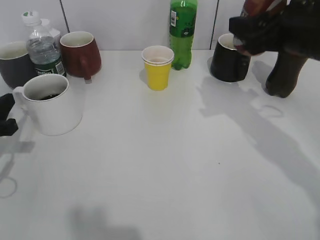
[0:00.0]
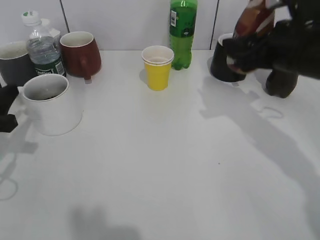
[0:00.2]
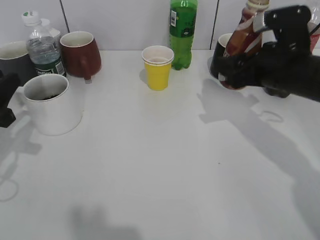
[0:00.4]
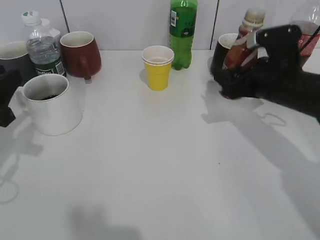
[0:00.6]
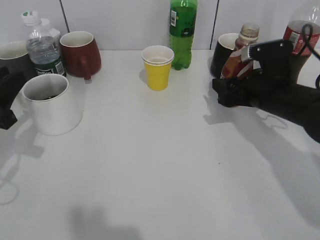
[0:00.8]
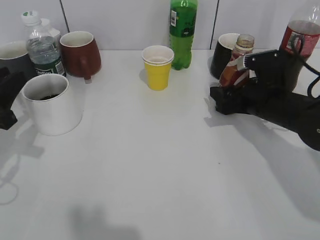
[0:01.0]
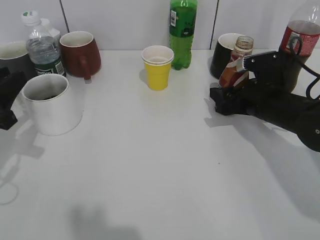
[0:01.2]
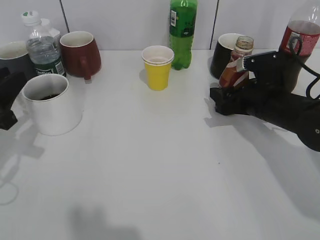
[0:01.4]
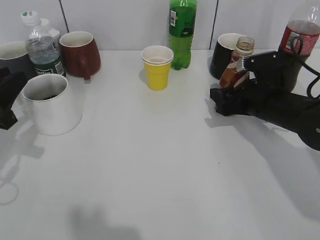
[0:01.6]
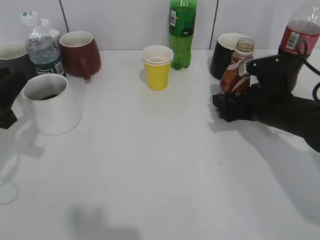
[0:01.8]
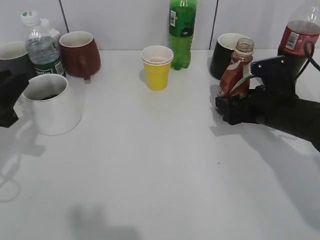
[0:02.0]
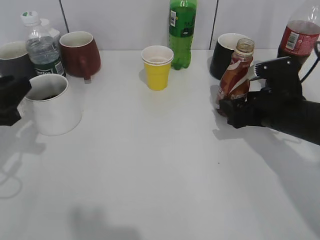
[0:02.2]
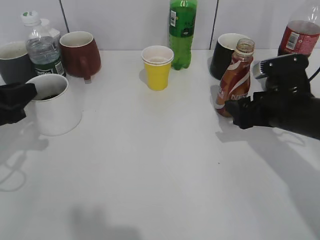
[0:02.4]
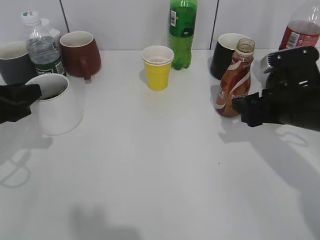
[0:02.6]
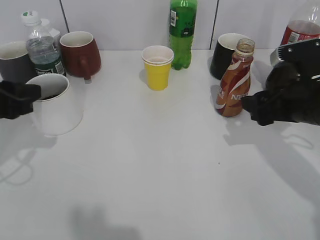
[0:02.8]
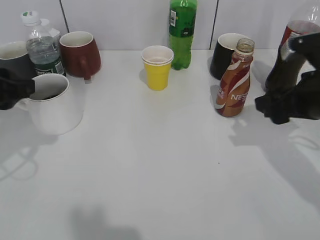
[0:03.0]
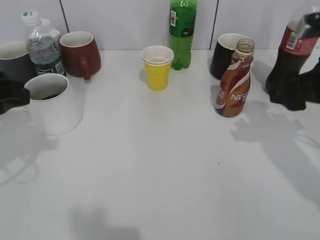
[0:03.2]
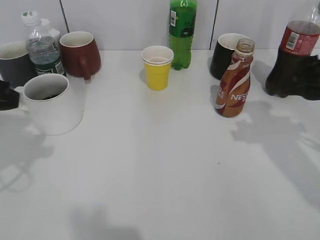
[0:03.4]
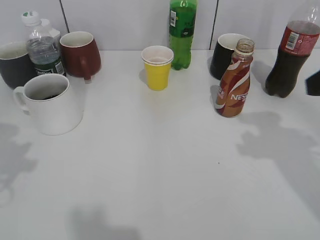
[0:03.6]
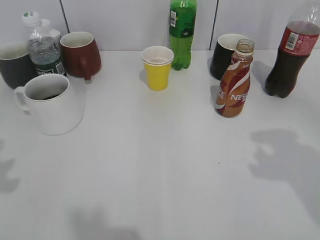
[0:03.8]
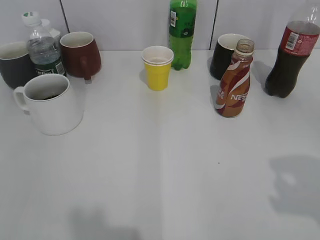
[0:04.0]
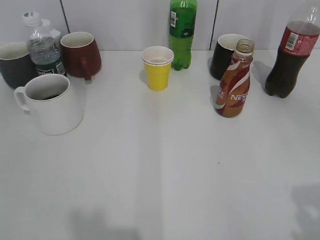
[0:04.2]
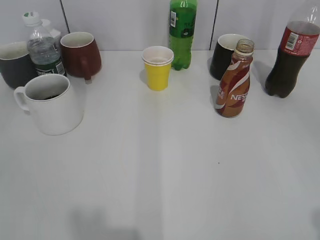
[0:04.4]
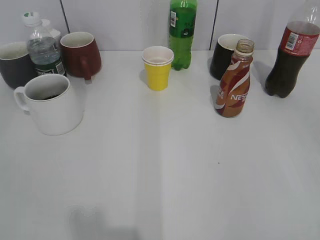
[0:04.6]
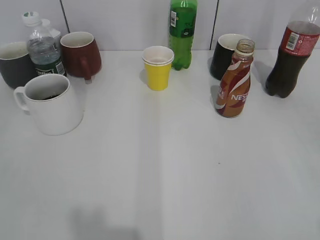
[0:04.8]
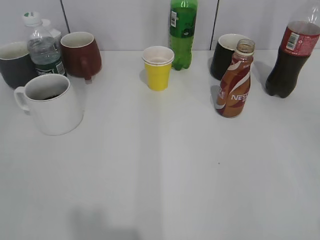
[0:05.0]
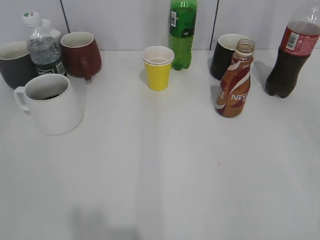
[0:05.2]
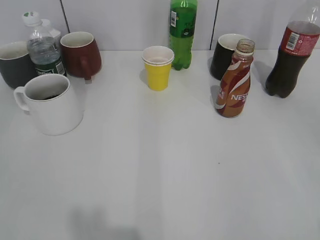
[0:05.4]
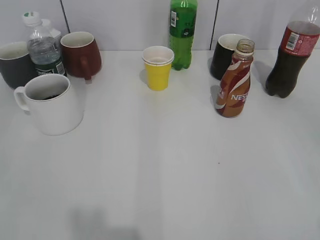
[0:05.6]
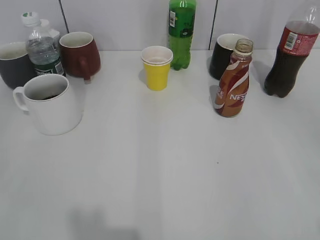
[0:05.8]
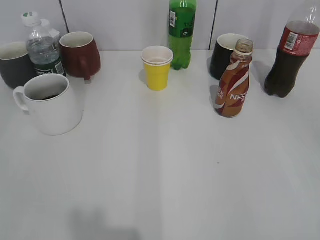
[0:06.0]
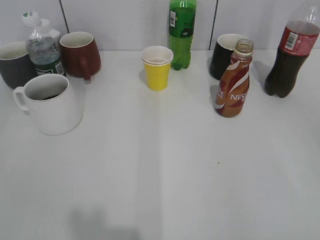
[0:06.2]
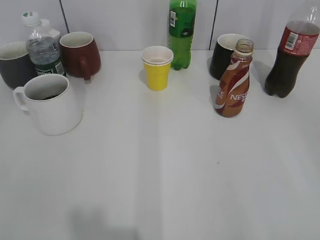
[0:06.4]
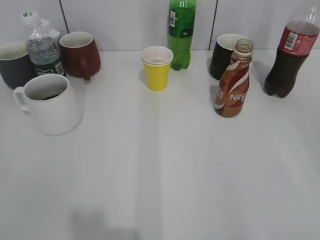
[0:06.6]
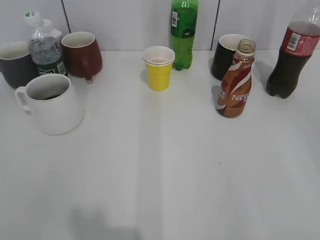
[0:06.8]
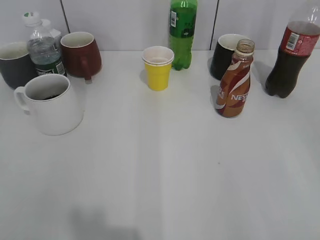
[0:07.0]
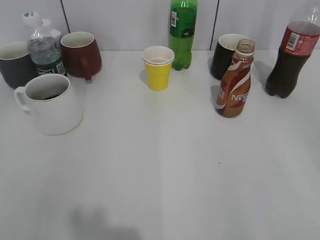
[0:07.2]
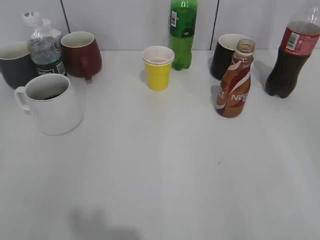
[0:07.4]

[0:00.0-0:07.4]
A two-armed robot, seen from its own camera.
Step, 0:00.0 to 0:02.4: Place the coffee bottle on the table with right gripper.
0:00.0 to 0:01.4: The left gripper moves some 5 cm. Meanwhile the right gripper moves downward, approximately 15 cm.
0:01.4 to 0:03.0: The right gripper goes roughly 10 cm upward and backward, and opens up, while the left gripper is displaced upward by approximately 5 cm.
0:03.0 to 0:04.4: The left gripper heads backward, covering roughly 20 cm. Meanwhile the right gripper heads backward and upward, covering approximately 25 cm.

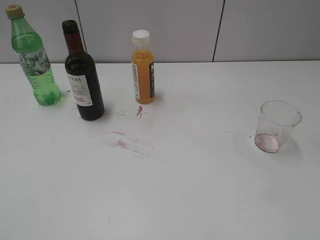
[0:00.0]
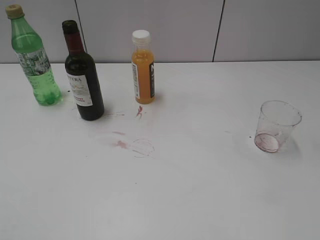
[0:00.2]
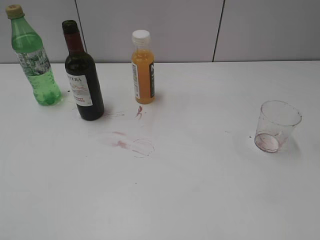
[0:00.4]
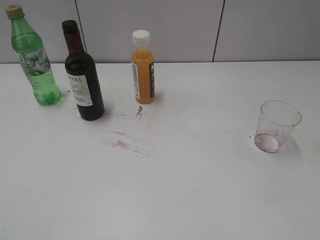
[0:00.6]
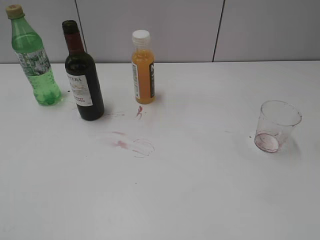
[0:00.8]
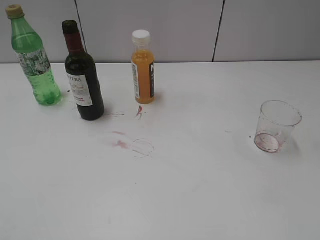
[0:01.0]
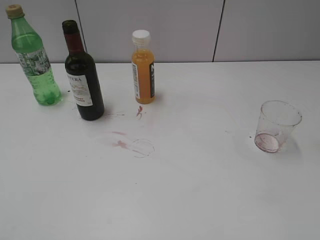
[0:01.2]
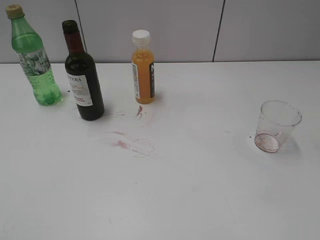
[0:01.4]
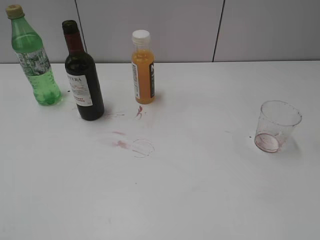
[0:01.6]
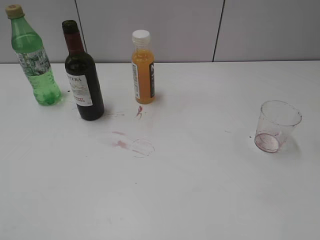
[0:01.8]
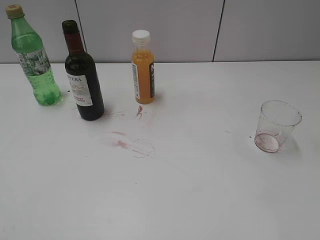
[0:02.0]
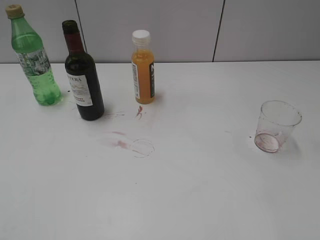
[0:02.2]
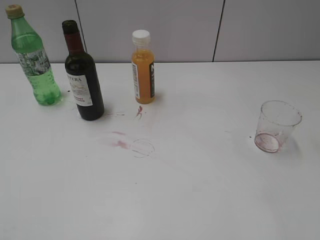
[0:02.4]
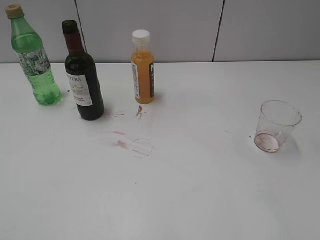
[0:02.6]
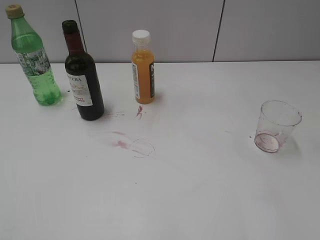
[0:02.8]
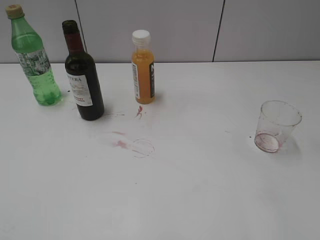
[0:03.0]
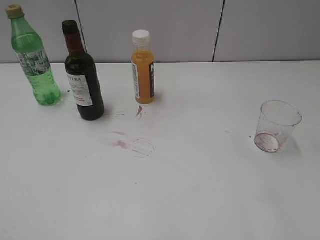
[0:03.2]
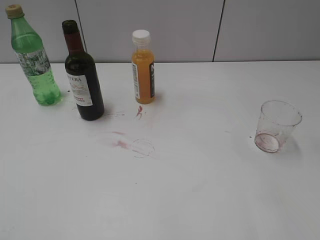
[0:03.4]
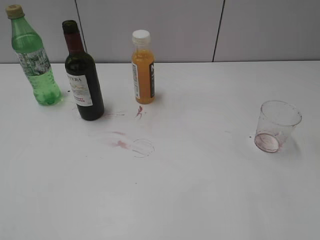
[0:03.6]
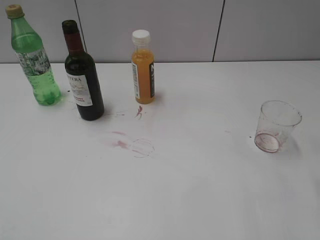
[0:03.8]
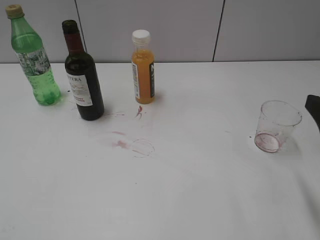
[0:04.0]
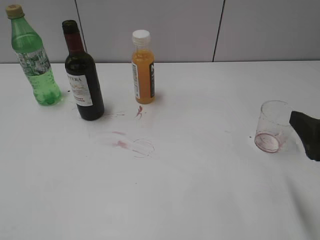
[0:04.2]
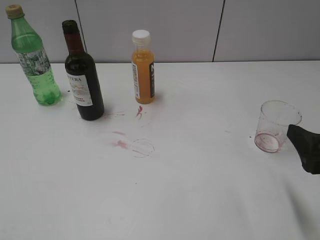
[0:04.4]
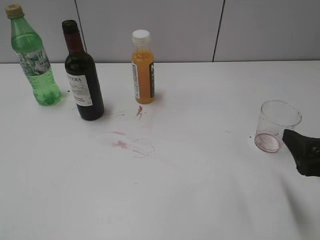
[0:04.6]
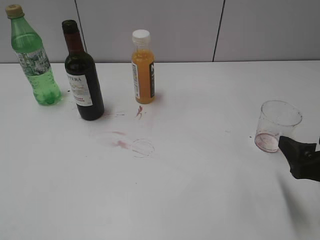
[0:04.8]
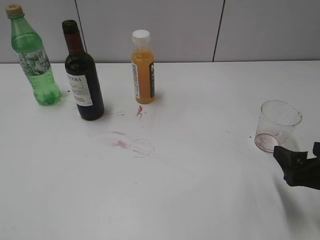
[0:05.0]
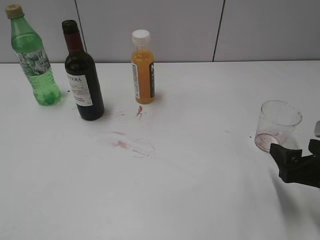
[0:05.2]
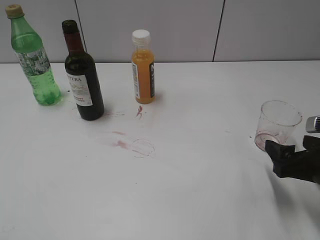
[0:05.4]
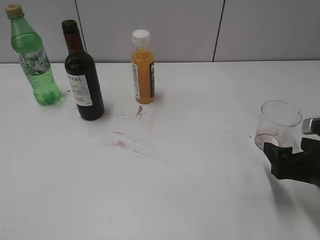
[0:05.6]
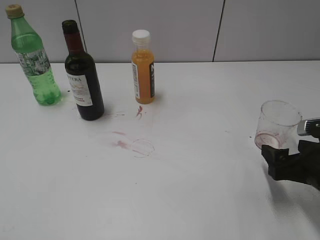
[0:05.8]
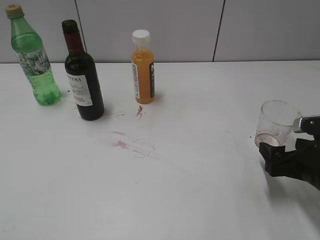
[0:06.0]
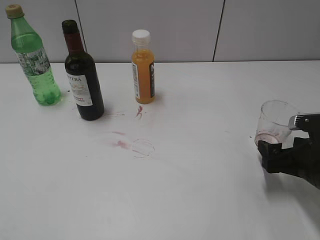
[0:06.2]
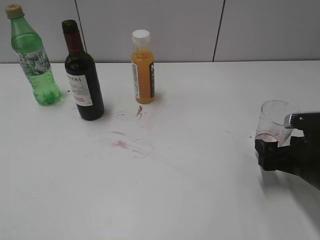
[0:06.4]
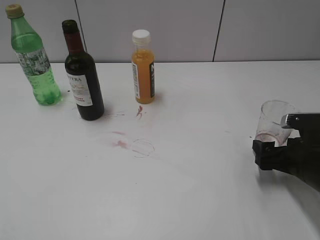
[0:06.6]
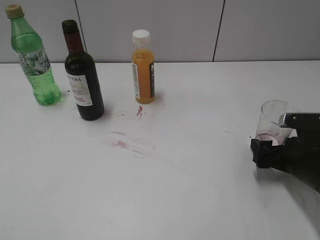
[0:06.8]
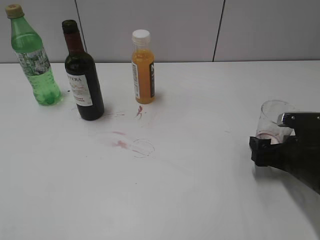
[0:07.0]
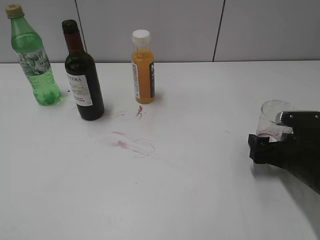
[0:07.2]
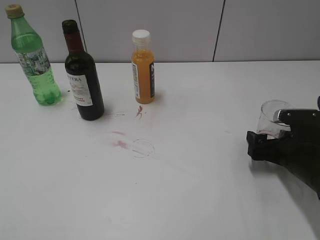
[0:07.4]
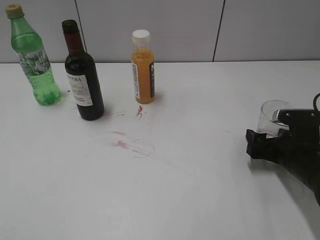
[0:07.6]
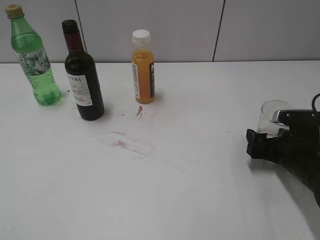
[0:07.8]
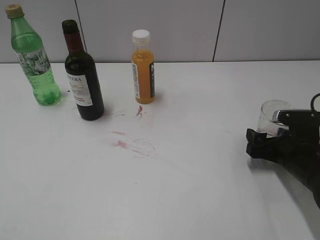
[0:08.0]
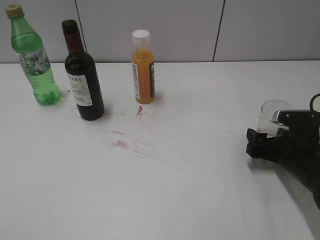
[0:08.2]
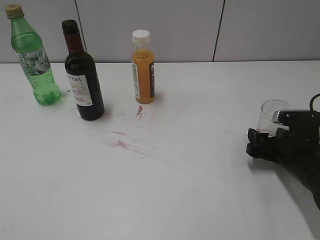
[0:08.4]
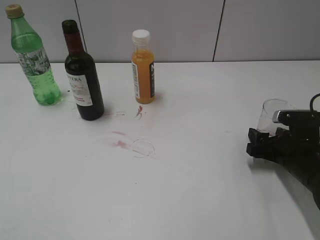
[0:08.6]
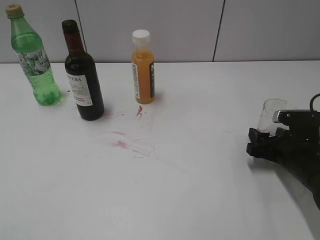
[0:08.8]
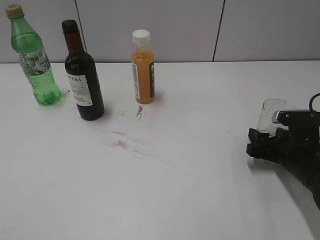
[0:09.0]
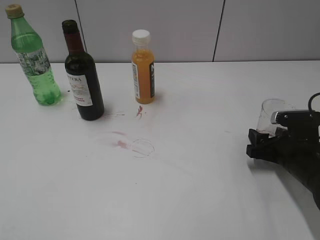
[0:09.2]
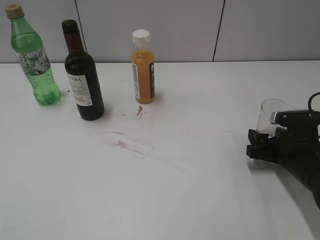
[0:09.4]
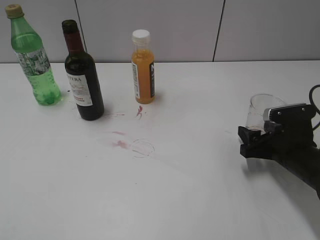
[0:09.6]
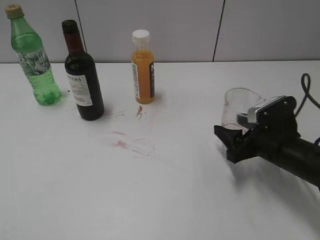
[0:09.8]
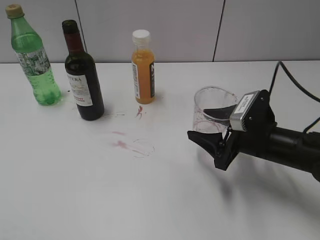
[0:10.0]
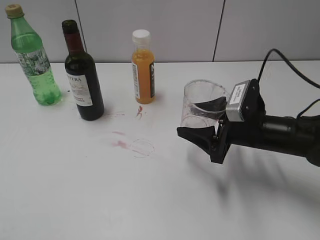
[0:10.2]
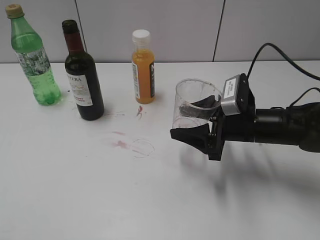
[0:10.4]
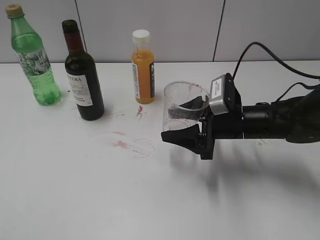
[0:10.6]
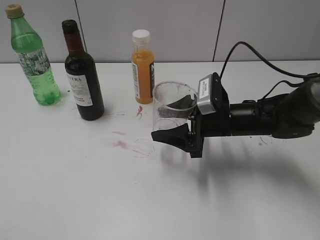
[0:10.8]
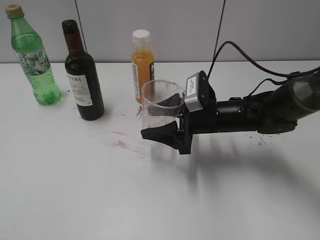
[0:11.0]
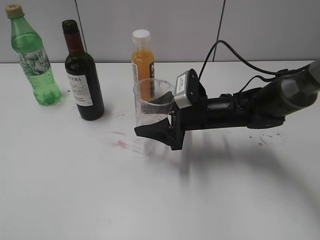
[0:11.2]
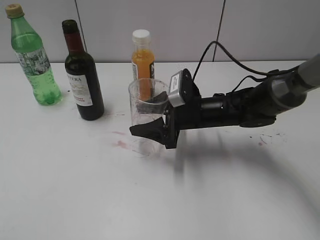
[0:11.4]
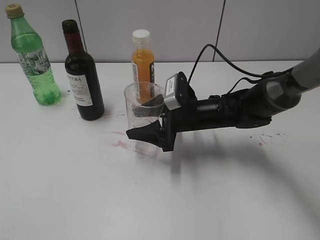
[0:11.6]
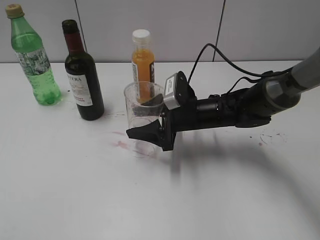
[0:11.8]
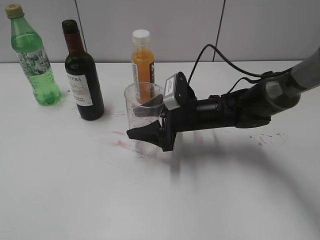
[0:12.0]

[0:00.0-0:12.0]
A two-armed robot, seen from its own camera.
Step, 0:01.4 to 0:08.4: Grasp the transparent cup with right gripper.
0:03.0 to 0:04.4: The right gripper travels downward by about 10 cm, and opens up.
0:04.4 to 0:06.0: The right gripper moves downward and forward, approximately 10 cm.
0:06.0 to 0:07.6: The right gripper travels forward by roughly 5 cm.
0:07.6 to 0:09.0: The right gripper closes.
0:09.0 to 0:10.4: The right gripper shifts some 10 cm to the left and upward.
0:10.4 to 0:12.0: The right gripper goes roughly 10 cm to the left and forward.

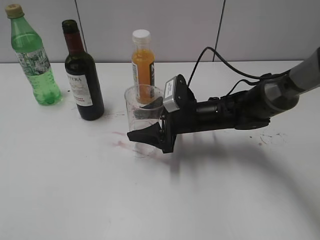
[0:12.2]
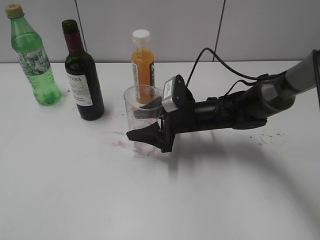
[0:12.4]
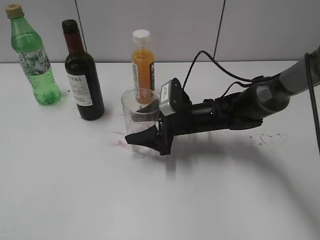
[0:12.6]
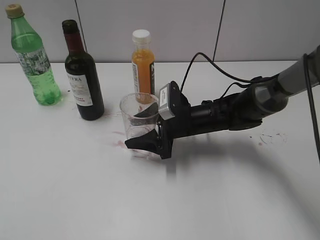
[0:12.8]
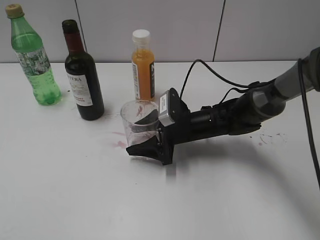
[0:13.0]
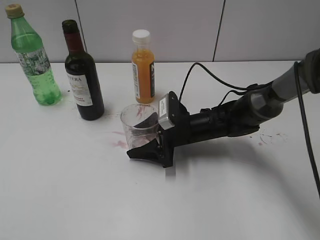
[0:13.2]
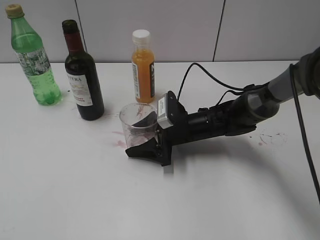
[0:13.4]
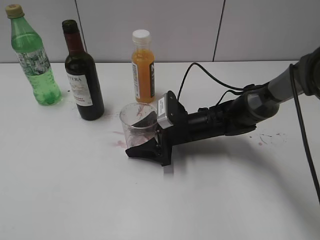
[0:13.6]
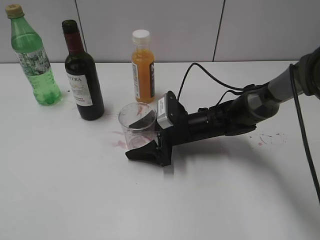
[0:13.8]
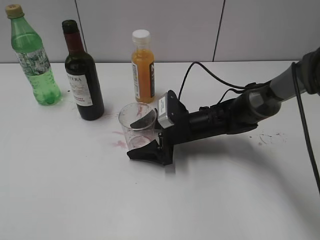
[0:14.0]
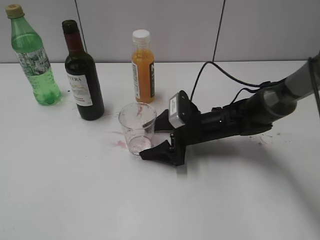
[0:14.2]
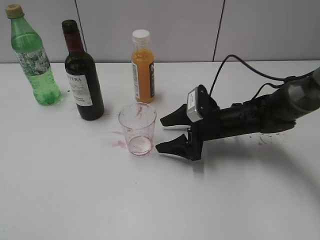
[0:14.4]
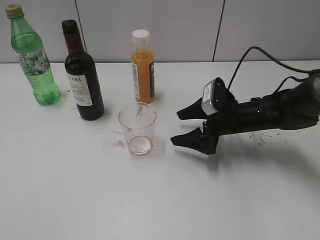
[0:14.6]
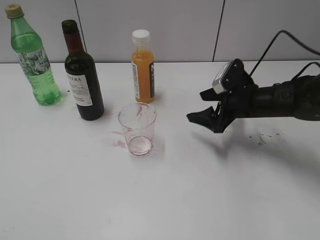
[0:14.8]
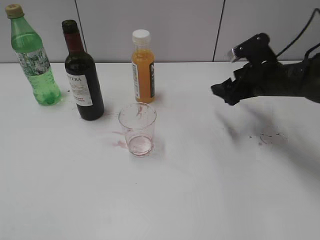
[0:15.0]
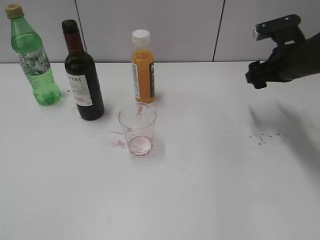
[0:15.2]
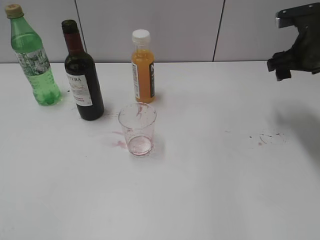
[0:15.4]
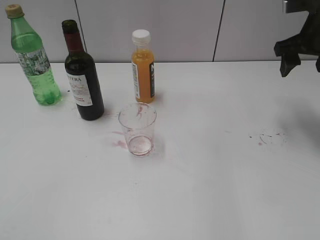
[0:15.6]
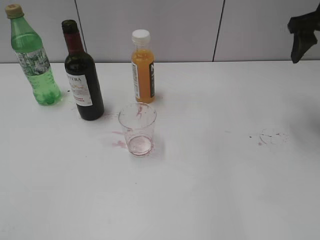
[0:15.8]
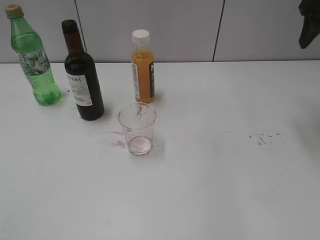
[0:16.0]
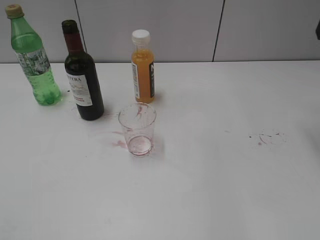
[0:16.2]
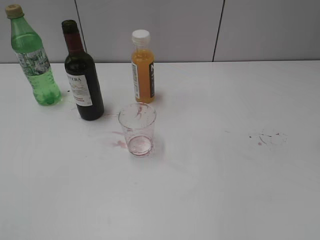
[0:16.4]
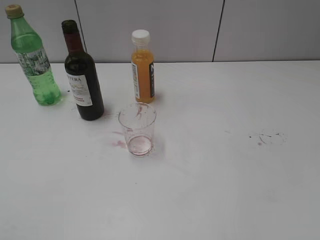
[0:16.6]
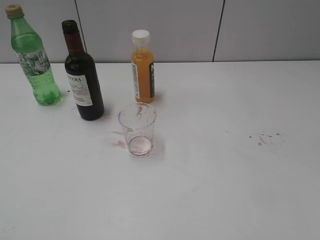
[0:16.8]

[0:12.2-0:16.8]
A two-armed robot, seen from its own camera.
Step, 0:12.2 to 0:14.2: Place the transparent cup on the table with right gripper.
0:12.2 to 0:13.8: The right gripper opens up.
0:13.8 to 0:15.2: The right gripper travels to the right and upward by roughly 25 cm.
0:15.2 to 0:16.8: The right gripper goes approximately 30 cm backward, upward and to the right.
